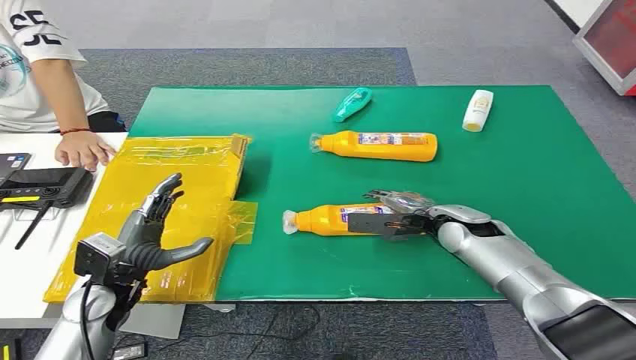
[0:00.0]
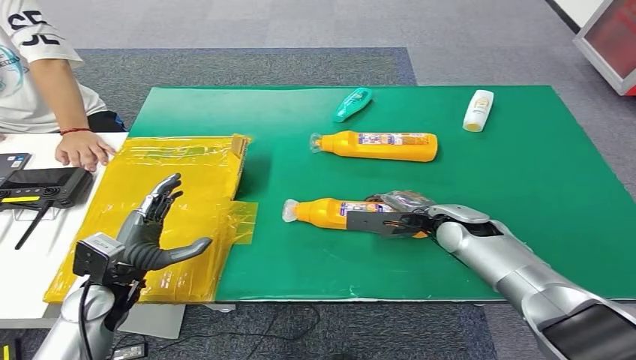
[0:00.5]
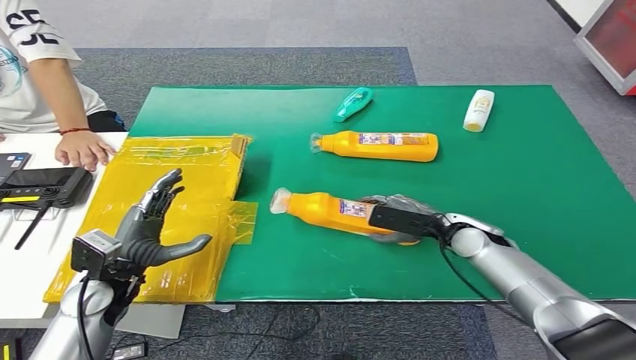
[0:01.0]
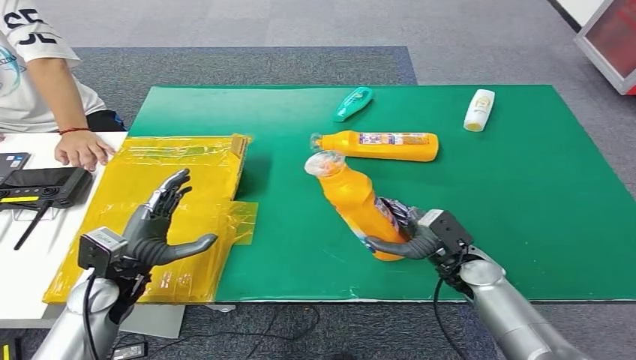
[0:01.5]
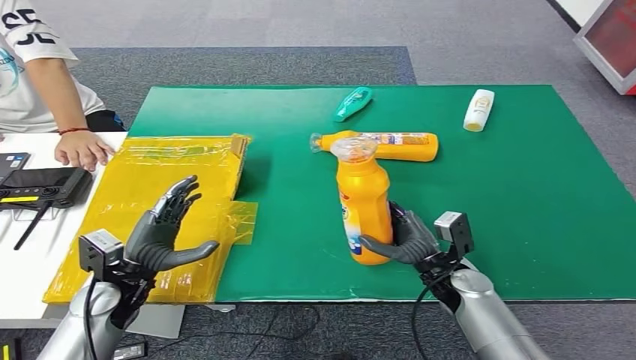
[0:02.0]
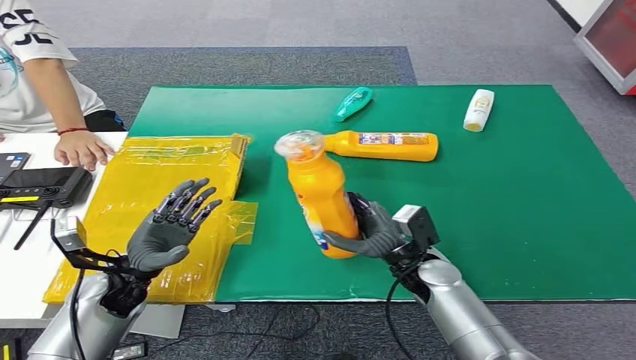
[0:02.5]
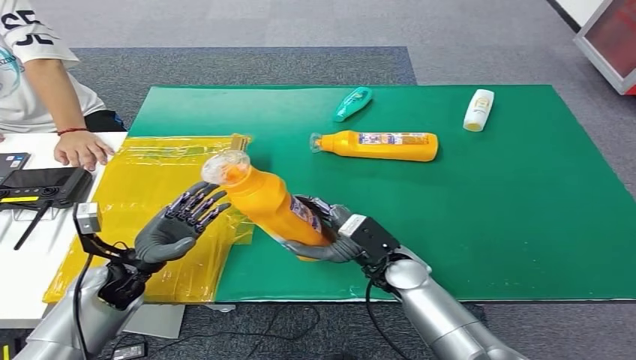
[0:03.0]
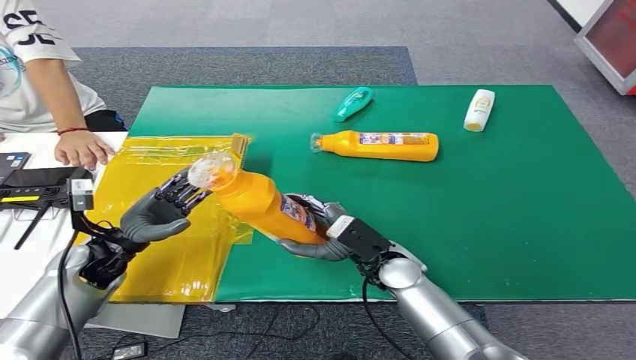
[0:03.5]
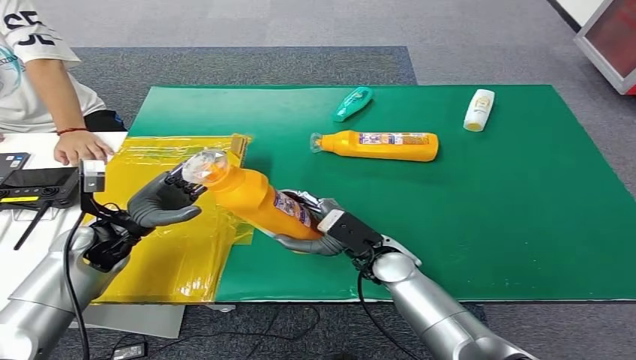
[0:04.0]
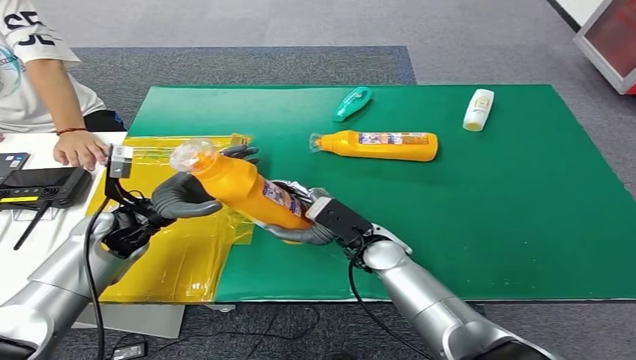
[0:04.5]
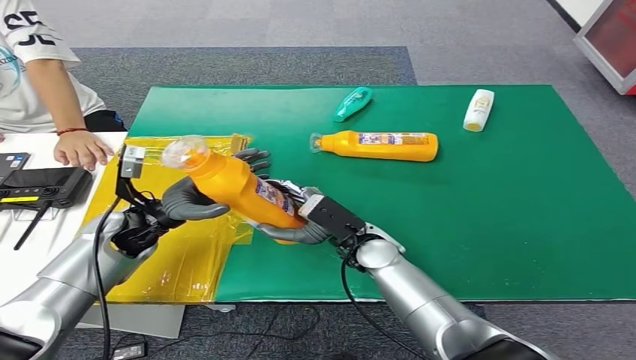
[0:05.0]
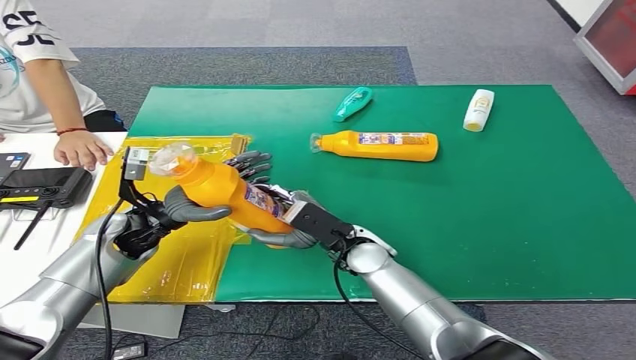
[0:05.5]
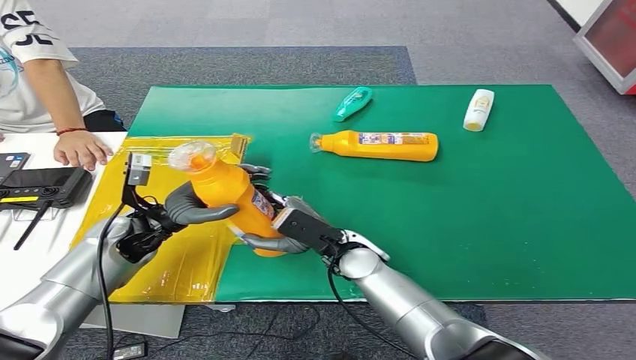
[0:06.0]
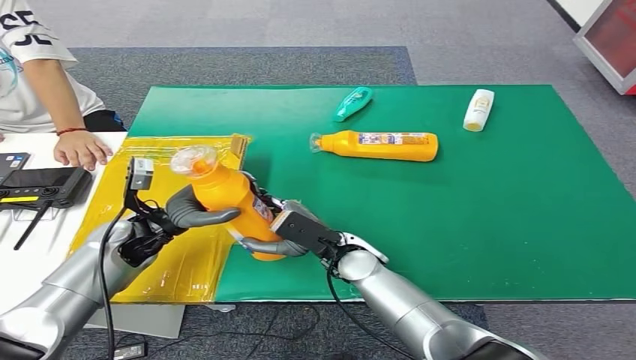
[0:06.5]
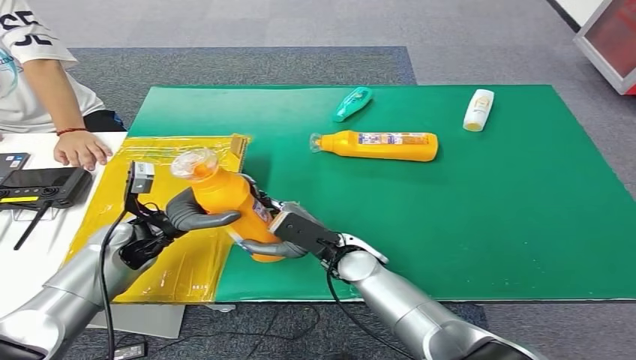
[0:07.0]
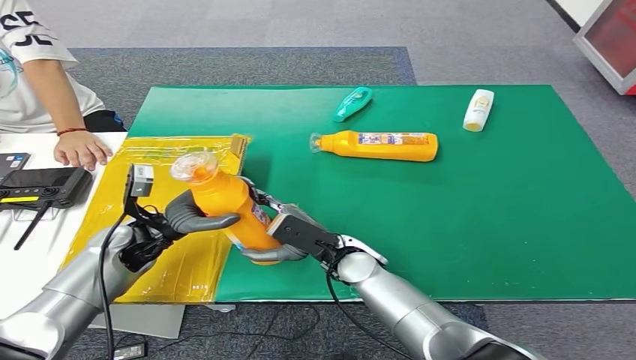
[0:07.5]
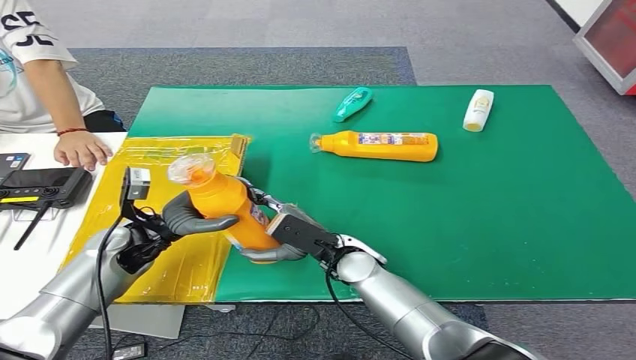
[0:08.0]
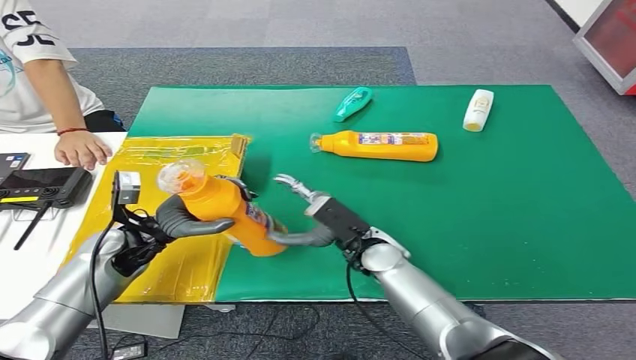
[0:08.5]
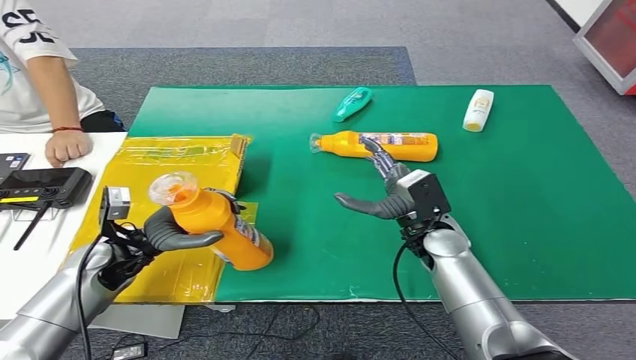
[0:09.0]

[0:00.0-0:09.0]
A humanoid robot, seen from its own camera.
Step, 0:00.0 to 0:03.0: Pick up the bottle from the table.
0:07.0 to 0:09.0: The right hand heads to the right, covering roughly 10 cm.

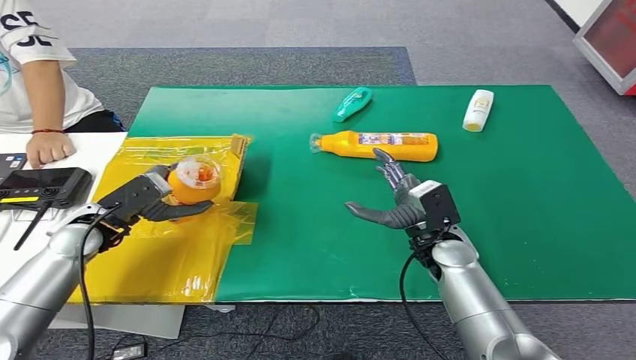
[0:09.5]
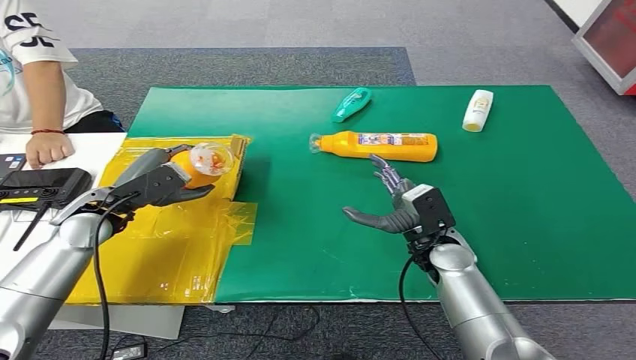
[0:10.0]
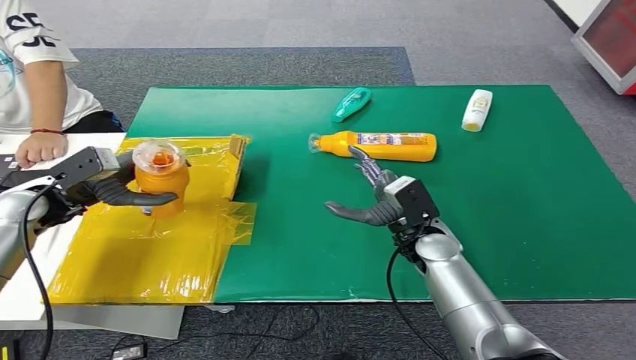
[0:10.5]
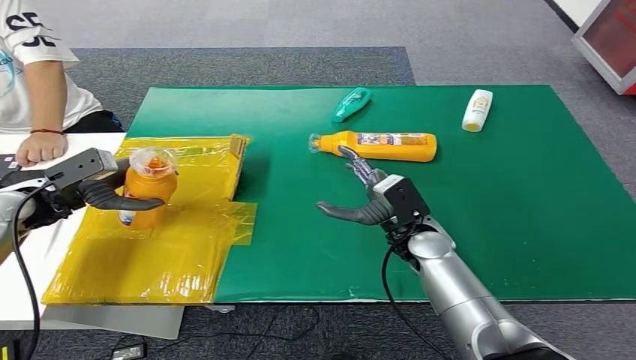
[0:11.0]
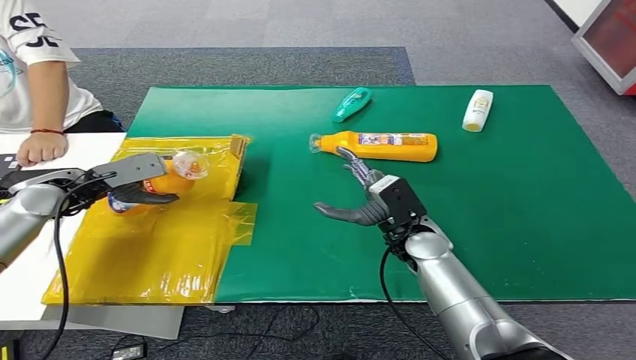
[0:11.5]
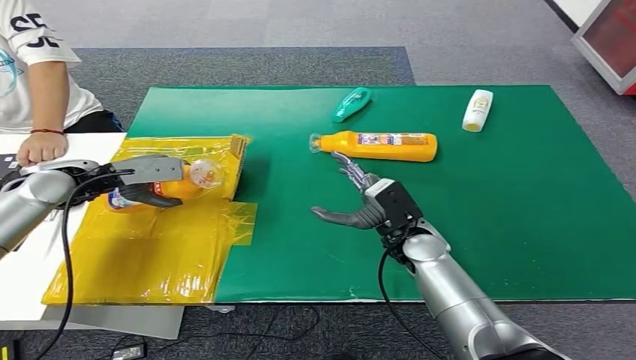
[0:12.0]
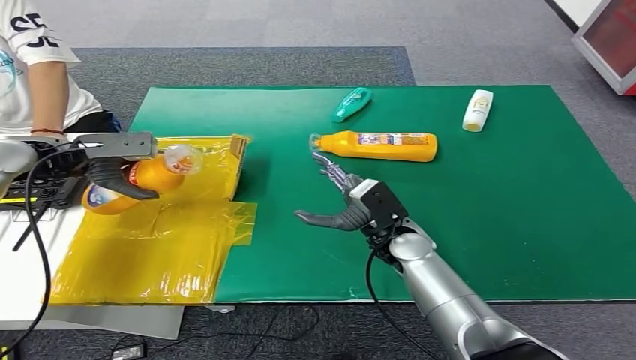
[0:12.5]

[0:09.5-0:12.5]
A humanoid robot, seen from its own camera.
Step, 0:09.5 to 0:12.5: Turn the bottle to the front side.
0:09.5 to 0:11.0: The left hand shifts about 10 cm to the left.
0:11.0 to 0:12.5: The left hand moves upward, roughly 10 cm.
